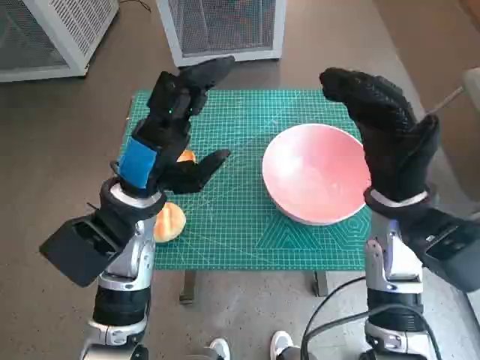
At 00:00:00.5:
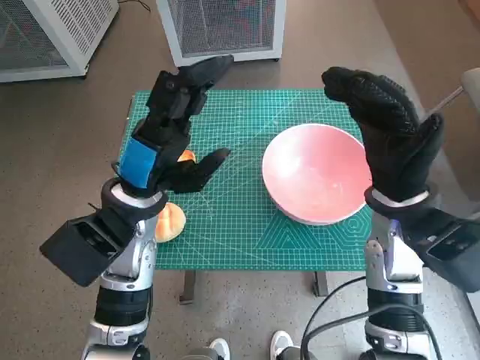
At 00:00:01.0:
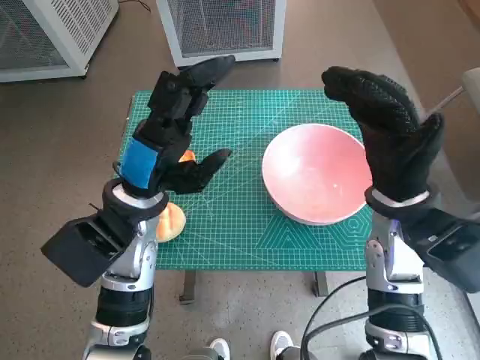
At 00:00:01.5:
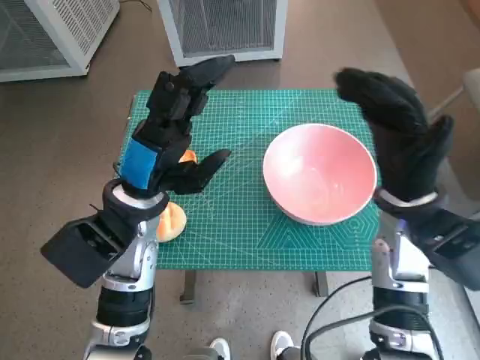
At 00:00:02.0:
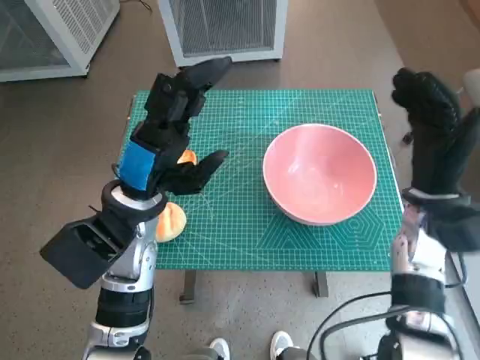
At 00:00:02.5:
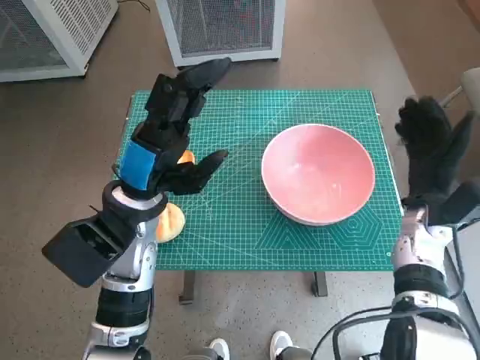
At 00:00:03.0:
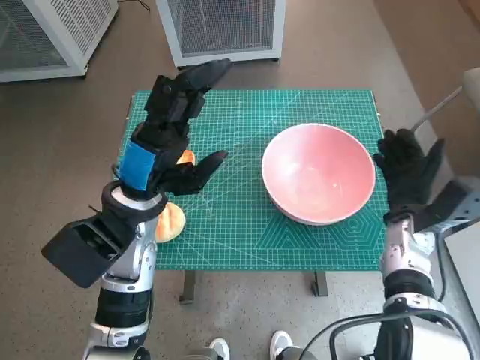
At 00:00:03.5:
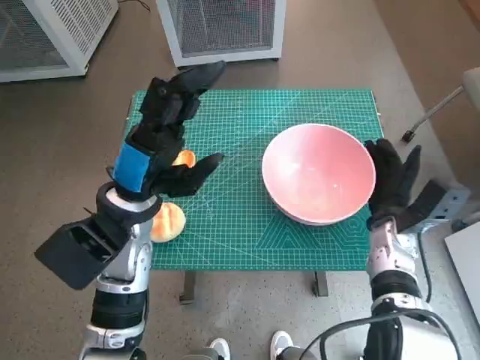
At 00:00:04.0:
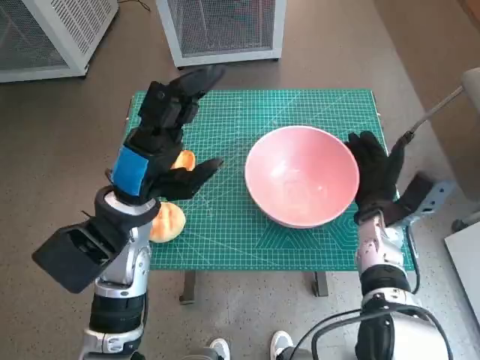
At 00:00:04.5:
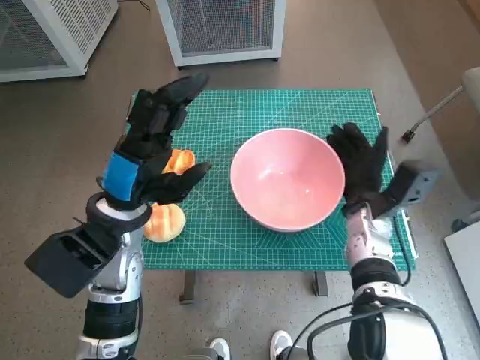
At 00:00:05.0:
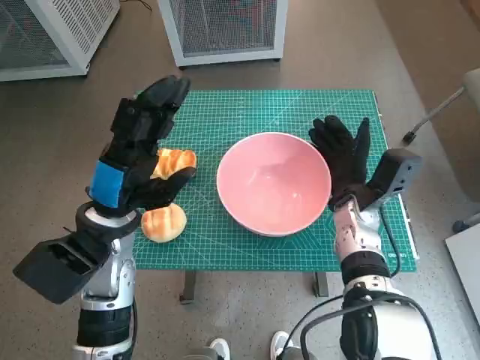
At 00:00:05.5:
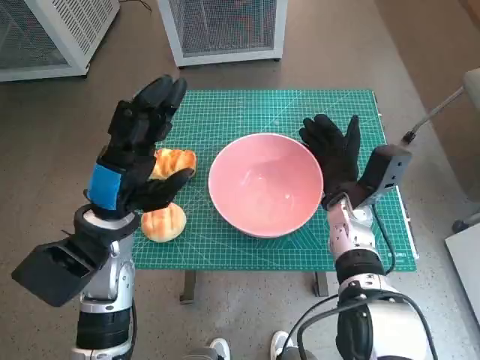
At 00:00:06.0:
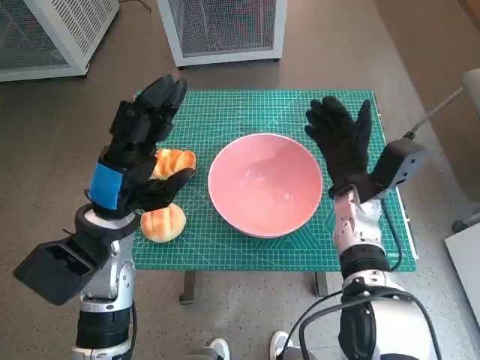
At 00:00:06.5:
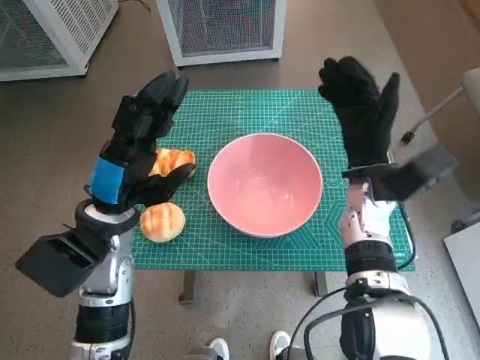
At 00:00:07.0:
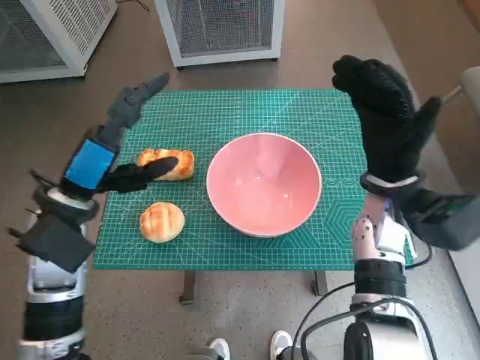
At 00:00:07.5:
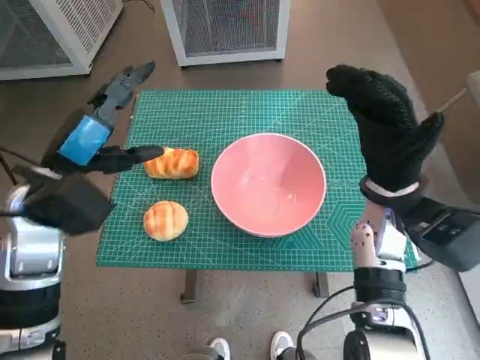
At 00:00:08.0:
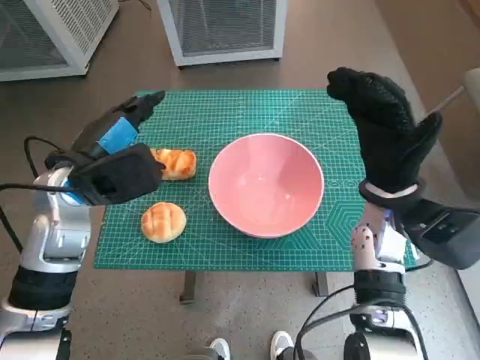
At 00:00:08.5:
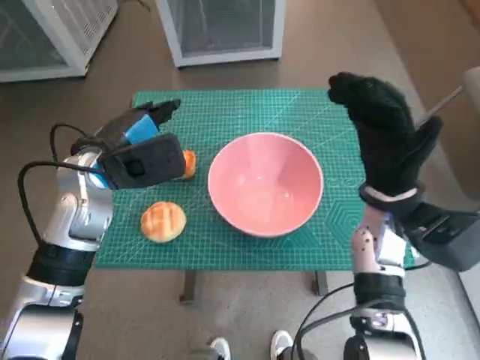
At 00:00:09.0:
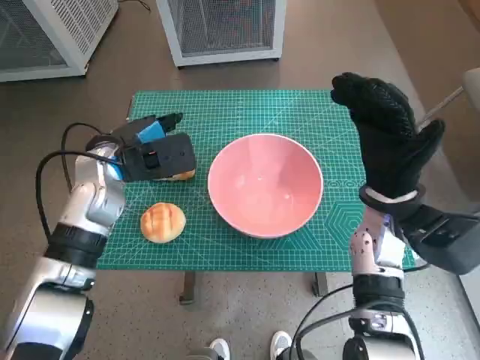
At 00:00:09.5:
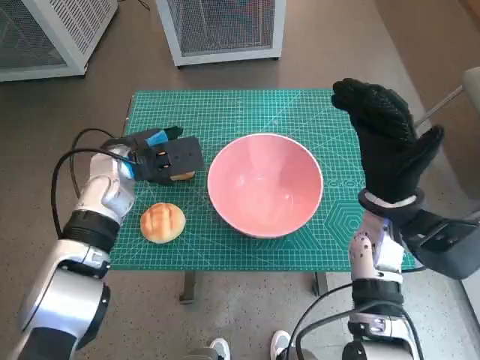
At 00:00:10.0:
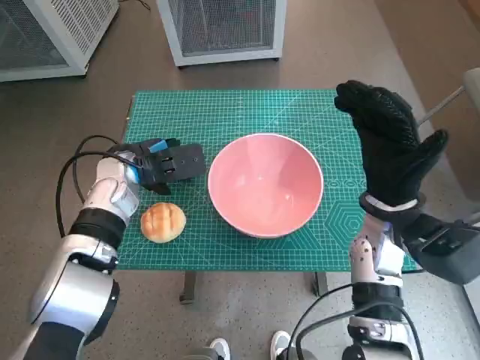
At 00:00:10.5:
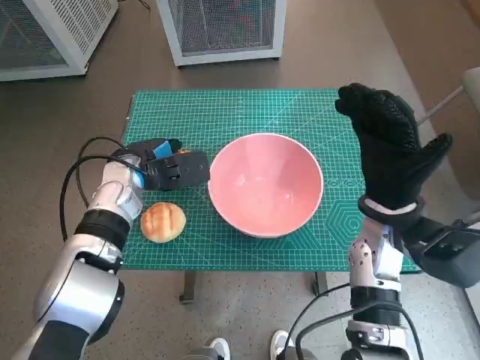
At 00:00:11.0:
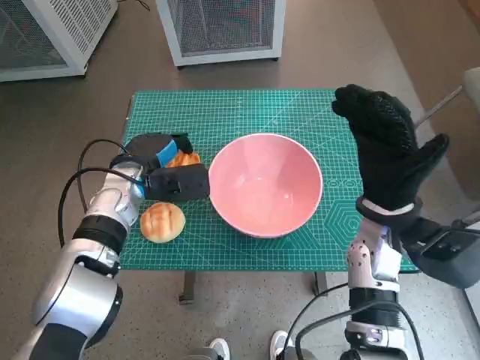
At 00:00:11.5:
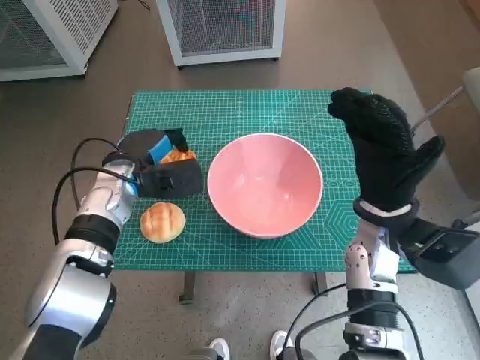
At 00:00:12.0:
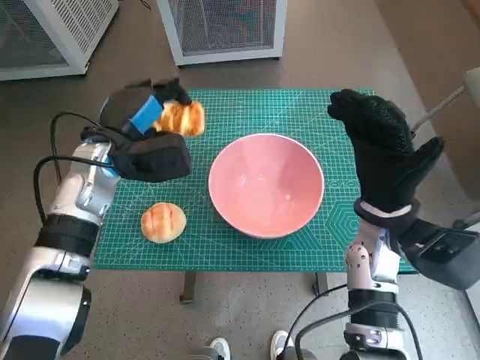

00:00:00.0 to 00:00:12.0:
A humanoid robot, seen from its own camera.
Task of the whole recording: Push the bowl into the center of the table and put the bread into the bowl.
Step, 00:00:00.0 to 00:00:06.0: Move the pink bowl to the center of table with right hand.
Step, 00:00:06.5 to 00:00:10.5: Grasp the long bread with left hand.

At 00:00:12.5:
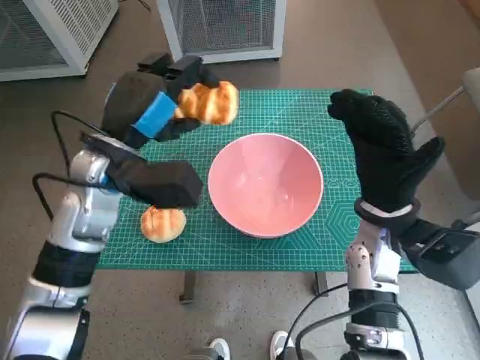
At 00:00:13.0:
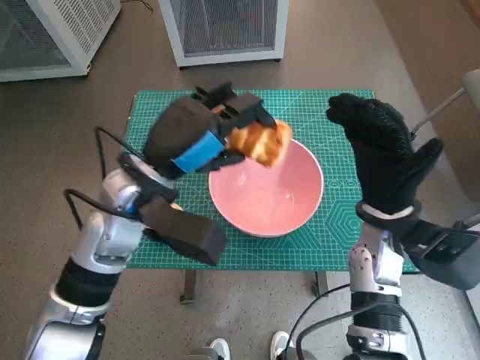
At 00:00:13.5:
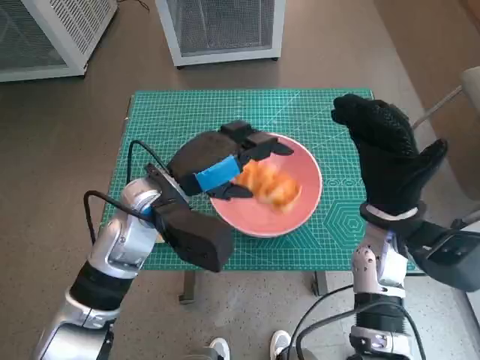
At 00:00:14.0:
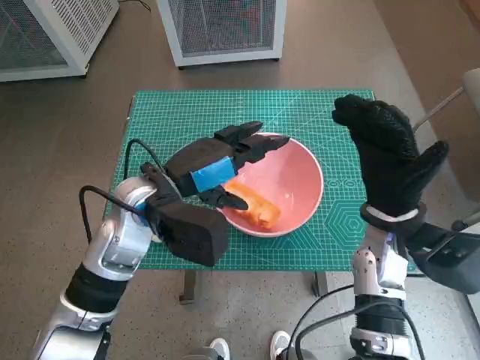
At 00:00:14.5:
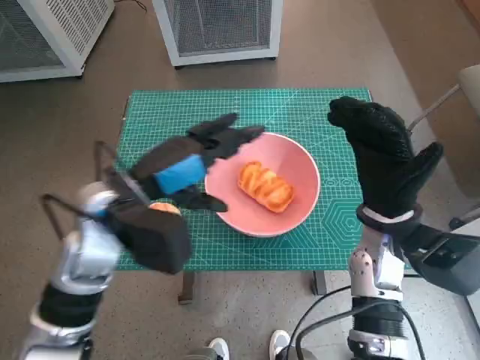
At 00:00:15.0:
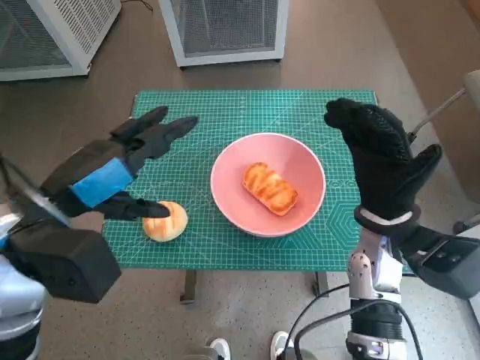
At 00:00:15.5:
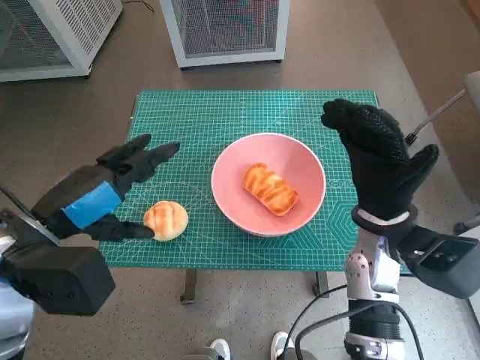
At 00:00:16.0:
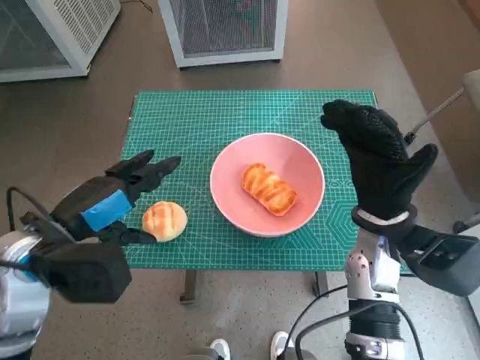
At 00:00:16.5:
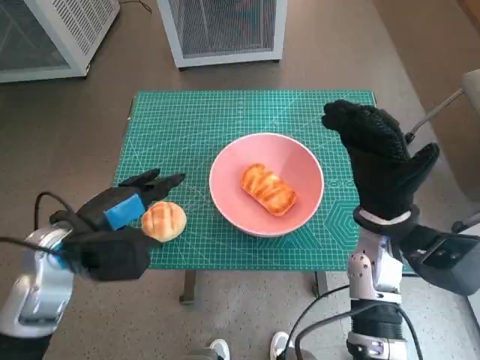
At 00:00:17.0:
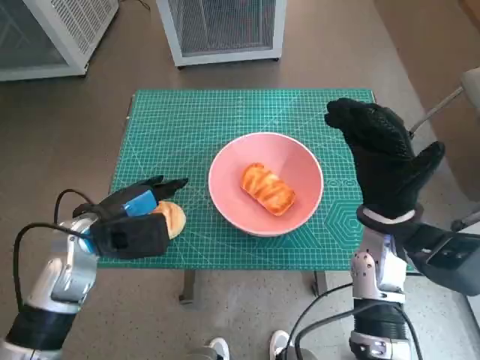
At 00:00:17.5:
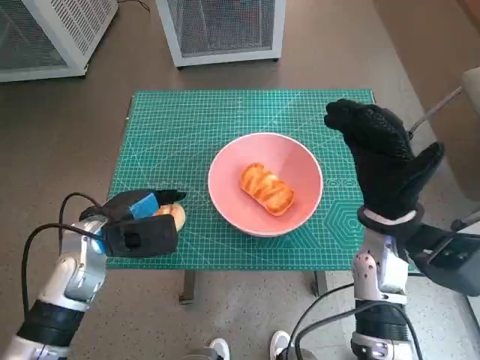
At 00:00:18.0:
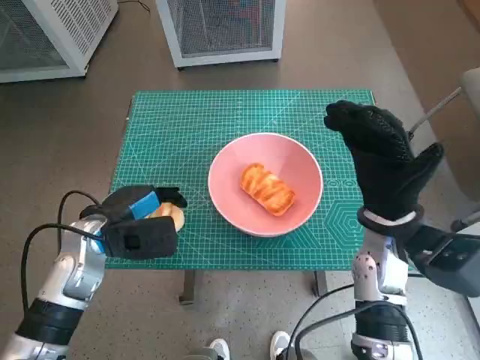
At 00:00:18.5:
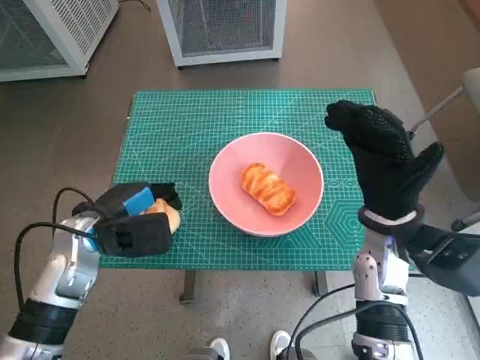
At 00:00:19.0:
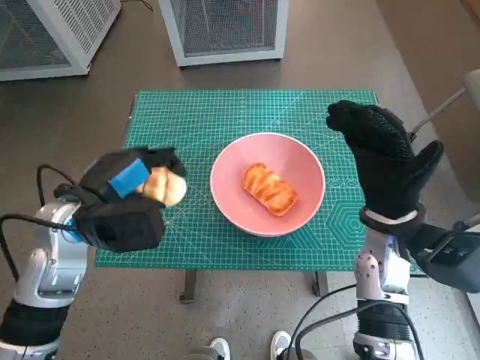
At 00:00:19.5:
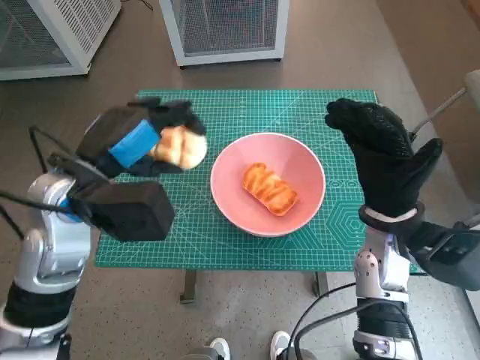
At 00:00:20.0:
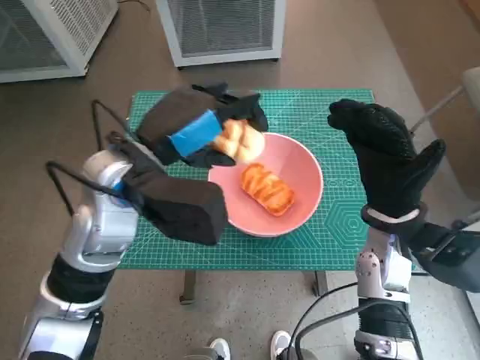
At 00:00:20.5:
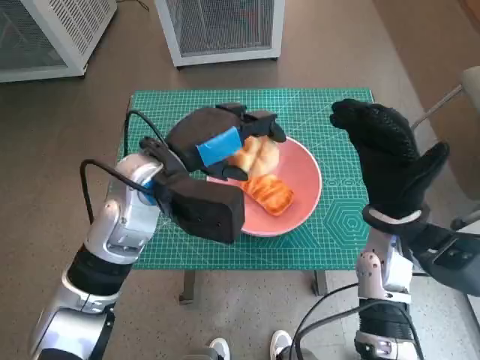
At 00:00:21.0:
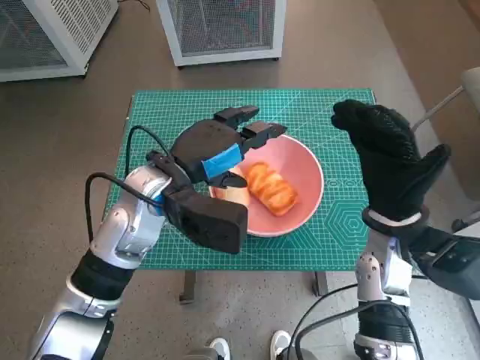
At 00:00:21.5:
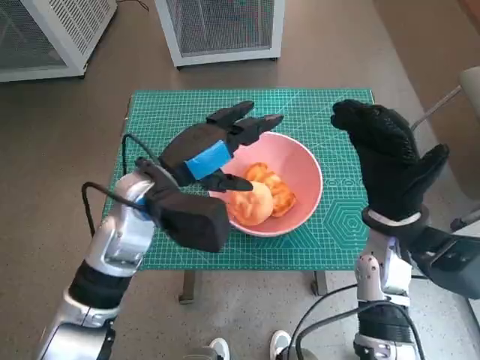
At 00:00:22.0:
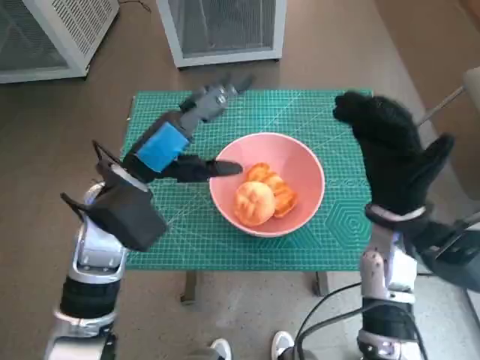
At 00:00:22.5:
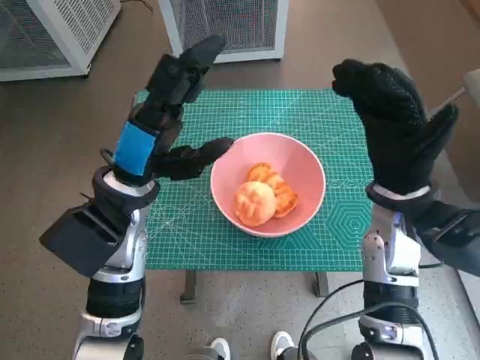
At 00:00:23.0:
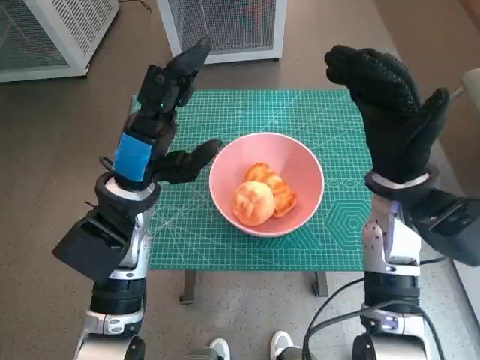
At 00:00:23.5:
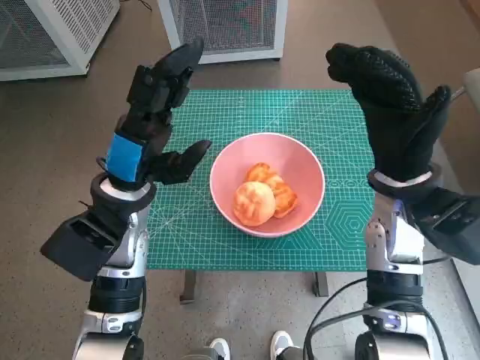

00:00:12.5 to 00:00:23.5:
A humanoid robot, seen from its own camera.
Task of the whole recording: Push the bowl into the center of the table and put the bread into the bowl.
Step, 00:00:14.0 to 00:00:17.5: Grasp the round bread with left hand.
Step, 00:00:18.0 to 00:00:20.5: Place the round bread in pink bowl with left hand.
